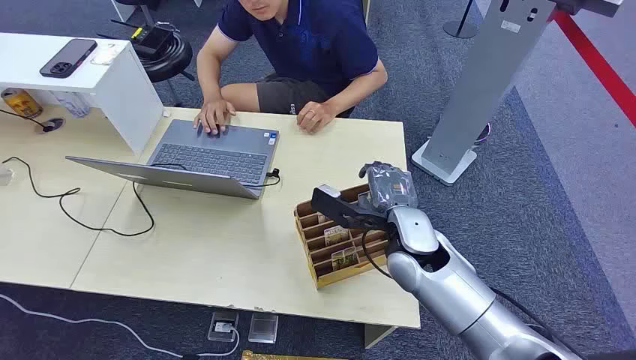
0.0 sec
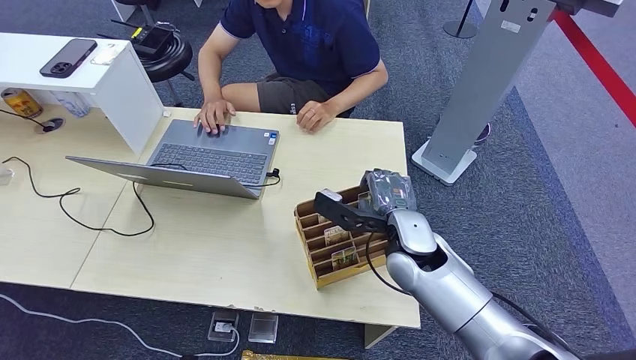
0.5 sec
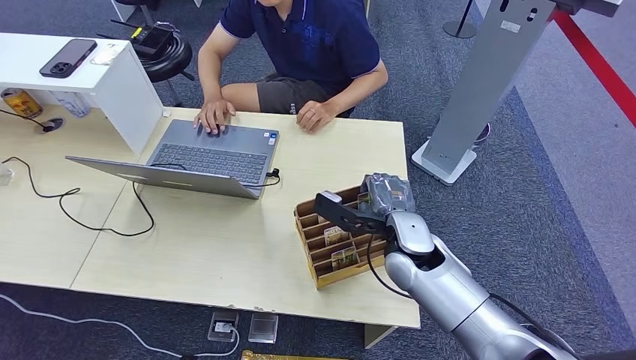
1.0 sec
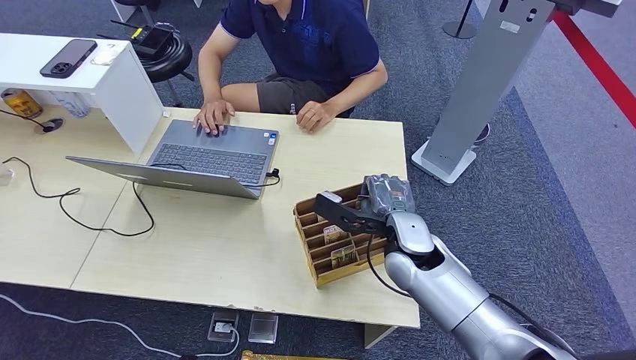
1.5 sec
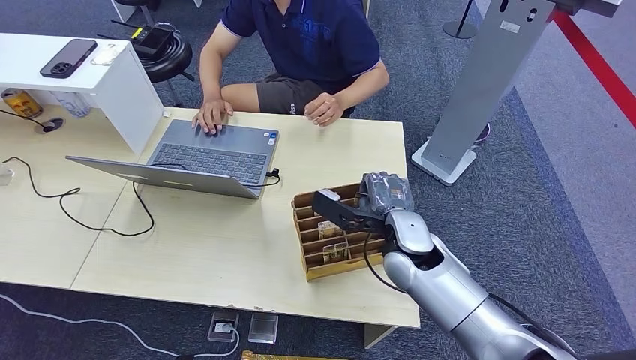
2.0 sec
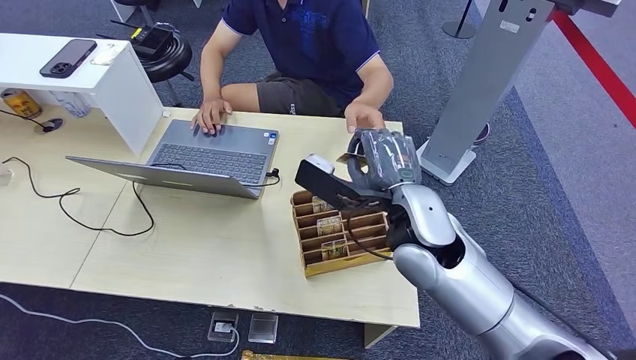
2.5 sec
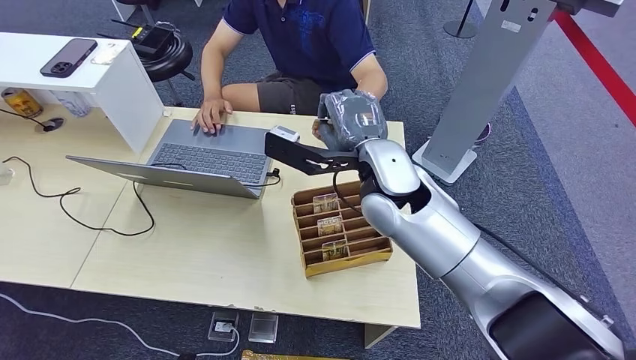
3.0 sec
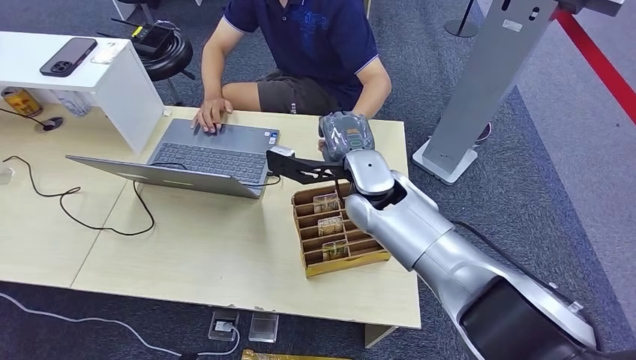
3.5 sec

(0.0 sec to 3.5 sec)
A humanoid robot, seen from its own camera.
Step, 0.0 sec - 2.0 sec: Pick up the key card from the card box.
Step, 2.5 sec - 3.5 sec: Hand the key card to the target.
2.0 sec - 3.5 sec: The right hand shifts roughly 10 cm upward, to the left and forward.
